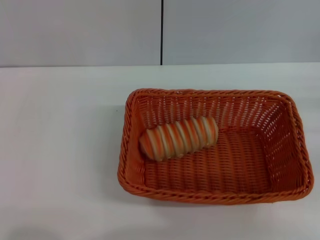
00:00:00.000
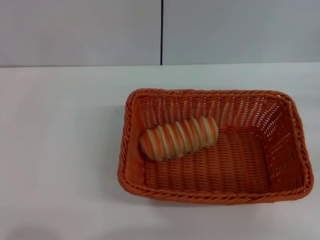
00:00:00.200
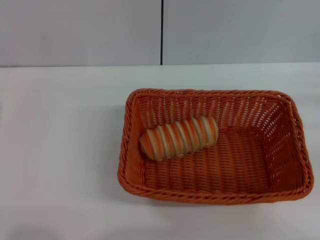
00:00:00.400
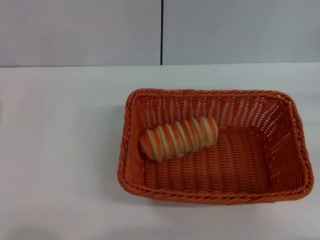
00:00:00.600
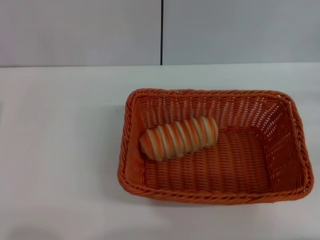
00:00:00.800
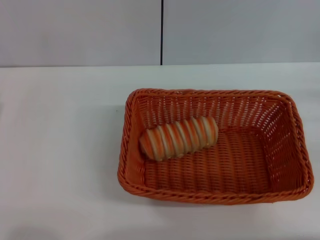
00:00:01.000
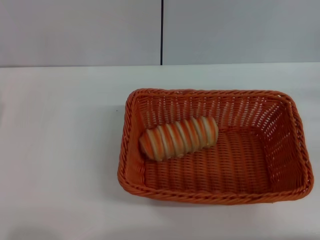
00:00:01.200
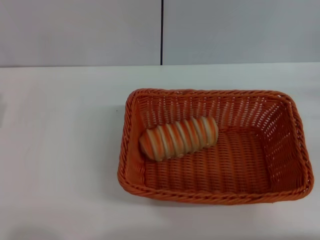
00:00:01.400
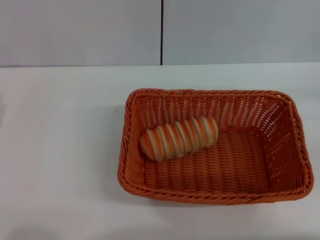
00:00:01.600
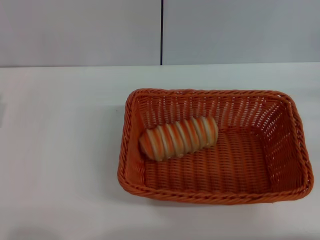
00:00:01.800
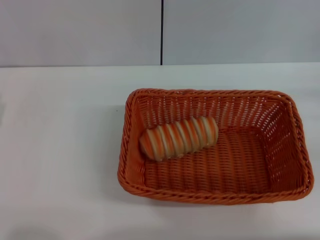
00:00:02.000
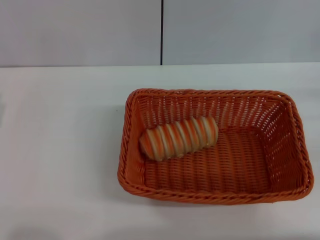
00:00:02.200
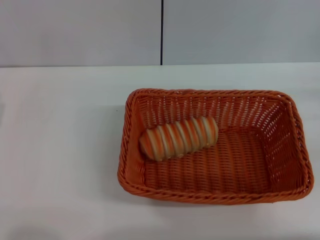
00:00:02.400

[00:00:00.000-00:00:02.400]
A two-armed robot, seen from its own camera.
00:00:01.200 to 00:00:02.400: The two grippers keep their place.

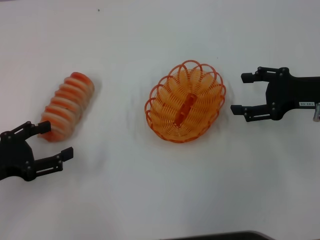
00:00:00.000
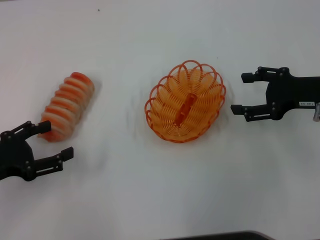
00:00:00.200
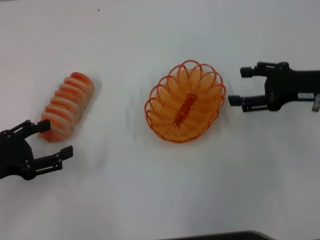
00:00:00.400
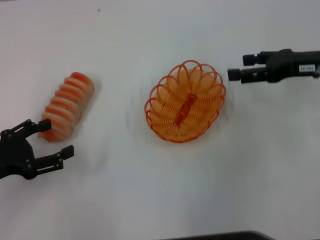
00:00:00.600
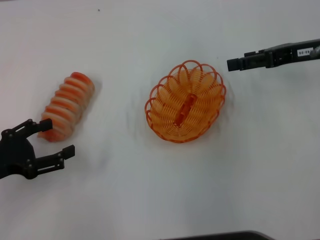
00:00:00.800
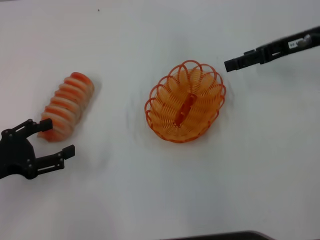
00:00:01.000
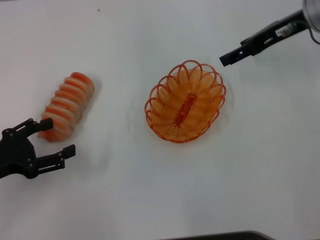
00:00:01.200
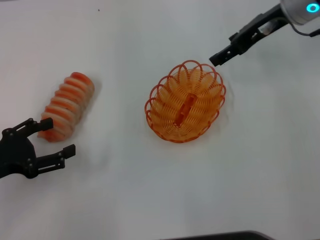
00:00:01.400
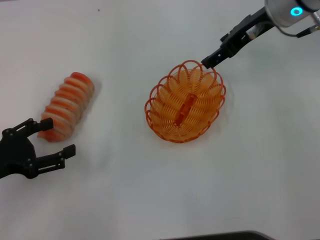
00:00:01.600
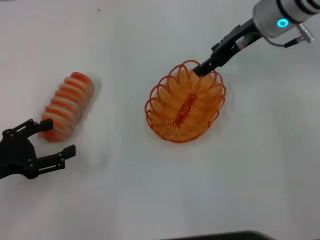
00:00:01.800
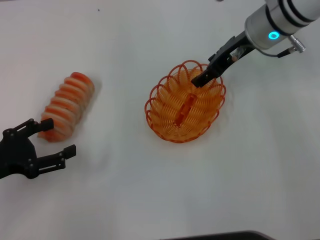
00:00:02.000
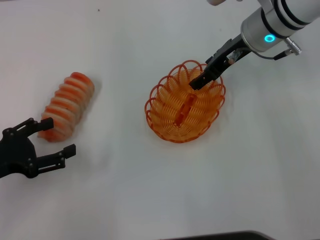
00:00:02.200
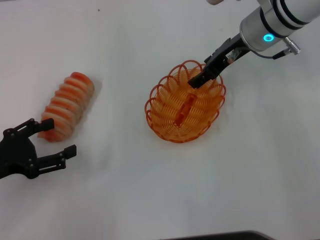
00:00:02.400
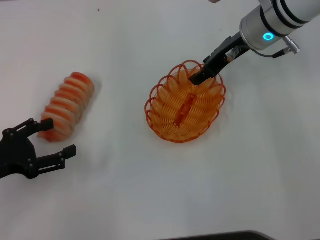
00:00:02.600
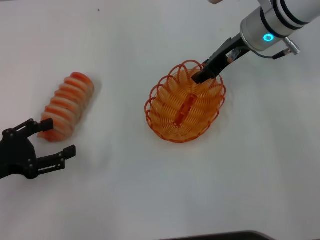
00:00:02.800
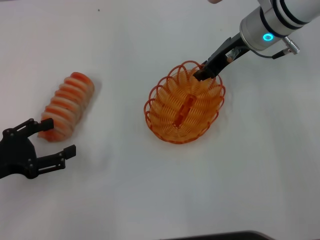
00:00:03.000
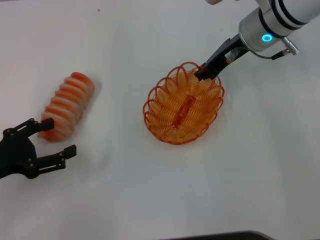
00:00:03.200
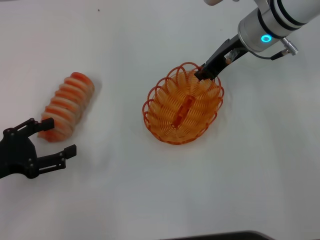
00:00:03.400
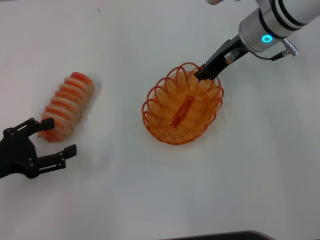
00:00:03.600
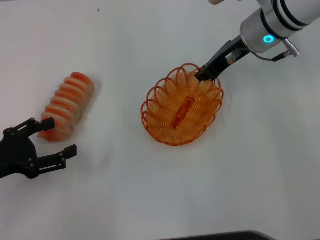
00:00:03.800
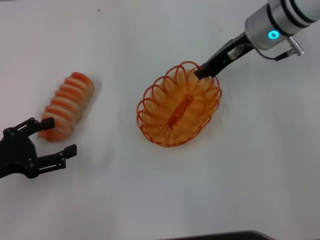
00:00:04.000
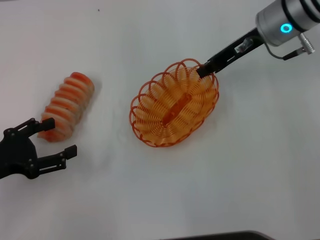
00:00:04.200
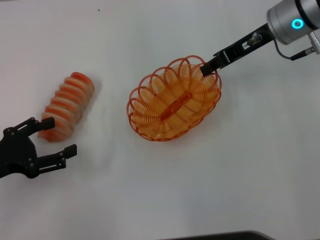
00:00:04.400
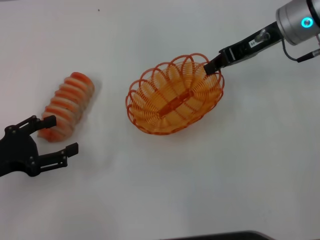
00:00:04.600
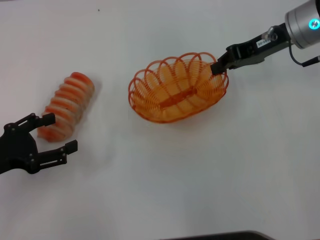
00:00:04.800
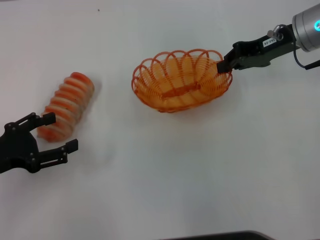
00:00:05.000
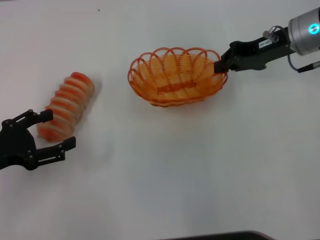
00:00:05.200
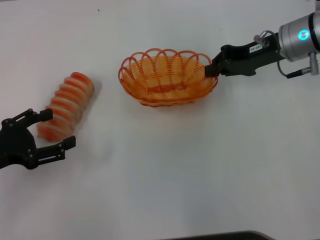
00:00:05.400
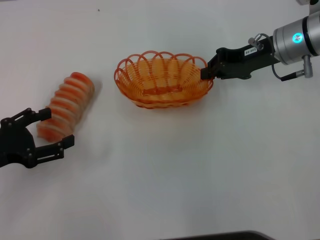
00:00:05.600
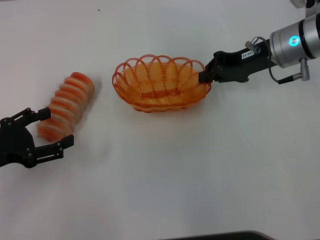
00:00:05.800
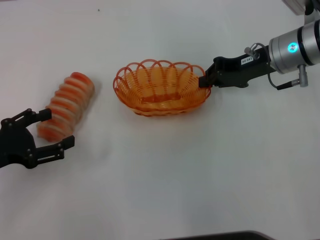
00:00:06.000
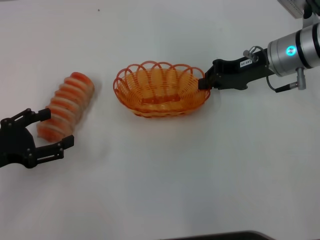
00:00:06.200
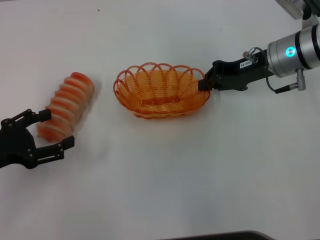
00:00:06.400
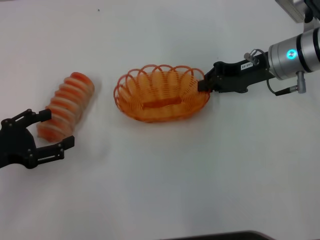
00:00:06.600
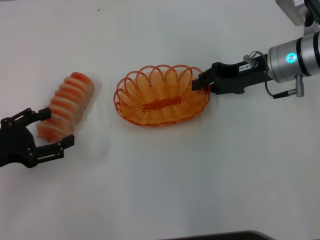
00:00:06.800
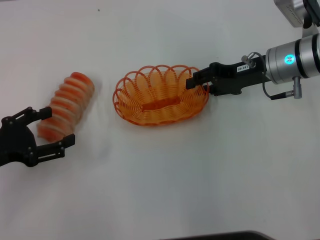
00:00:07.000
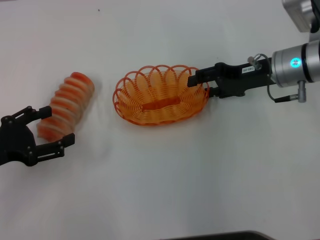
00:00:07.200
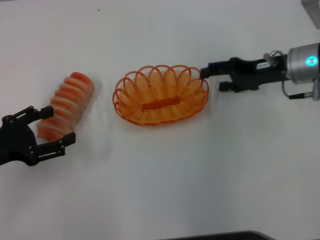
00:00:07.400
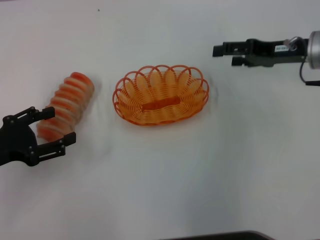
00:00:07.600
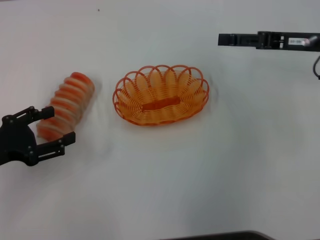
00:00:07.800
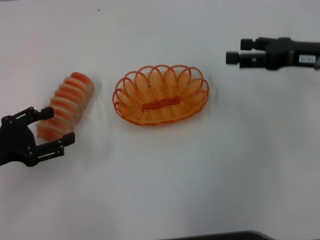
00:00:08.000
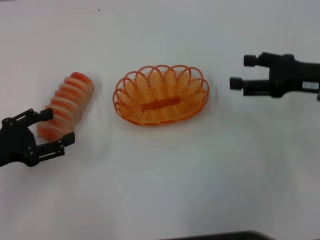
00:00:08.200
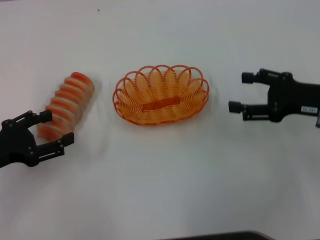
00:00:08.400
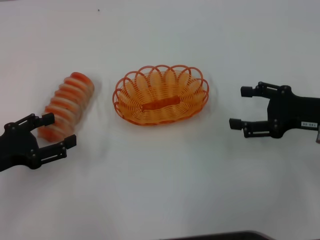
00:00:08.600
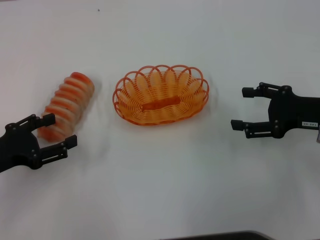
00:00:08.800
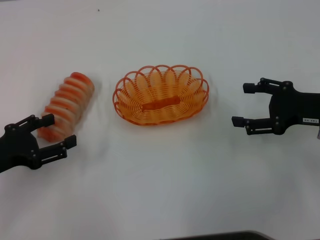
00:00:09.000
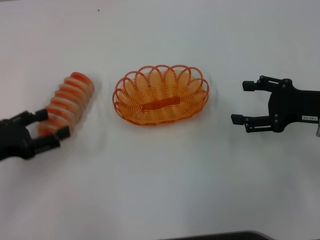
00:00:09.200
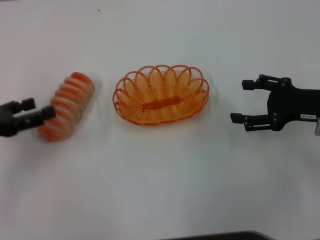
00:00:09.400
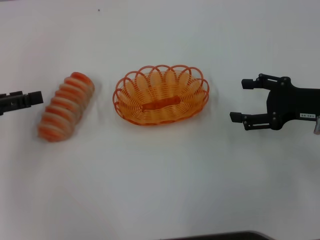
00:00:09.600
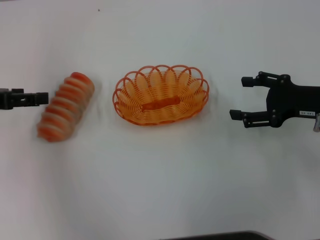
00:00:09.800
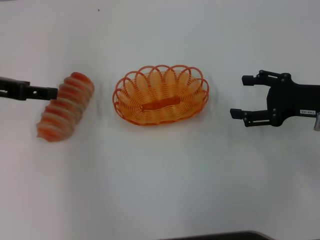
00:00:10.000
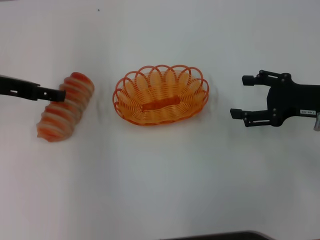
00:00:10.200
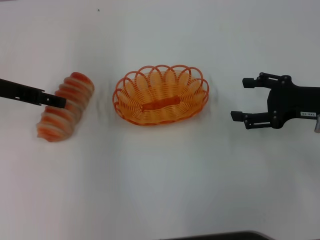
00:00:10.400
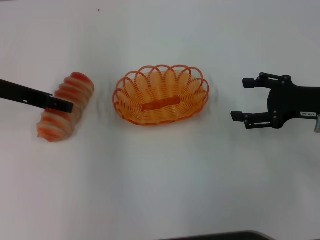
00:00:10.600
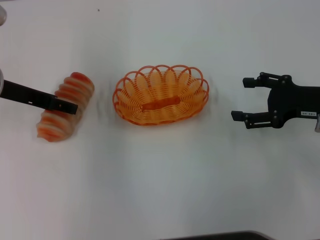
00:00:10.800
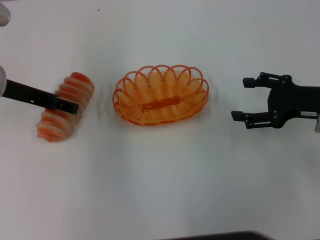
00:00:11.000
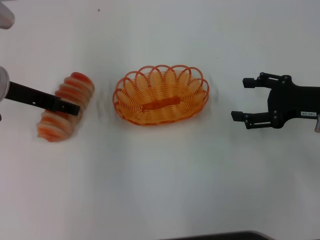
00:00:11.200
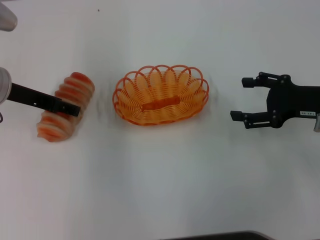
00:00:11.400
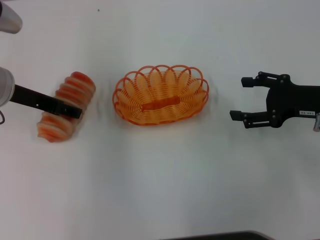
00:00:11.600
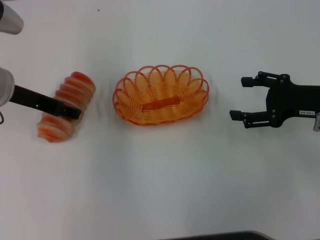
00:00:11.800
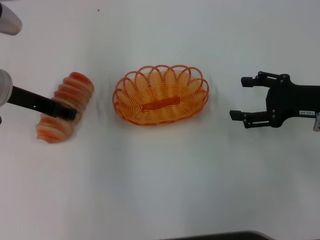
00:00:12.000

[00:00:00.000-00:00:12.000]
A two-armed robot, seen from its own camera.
Step, 00:00:00.000 to 00:00:04.600: Pick up the basket with the right gripper.
Step, 00:00:05.000 to 00:00:07.600: Place the basket in the center of view with the right gripper.
00:00:00.000 to 00:00:01.600: The right gripper shifts approximately 20 cm forward, to the left and upward.
00:00:01.600 to 00:00:03.000: The right gripper closes.
00:00:03.000 to 00:00:04.400: The right gripper closes its fingers.
00:00:04.400 to 00:00:06.000: The right gripper goes some 5 cm downward.
00:00:06.000 to 00:00:07.600: The right gripper heads to the right, covering roughly 5 cm, and opens up.
00:00:07.600 to 00:00:09.000: The right gripper moves backward, some 10 cm.
00:00:09.000 to 00:00:10.400: The left gripper heads forward, upward and to the right, covering about 15 cm.
00:00:10.400 to 00:00:12.000: The grippers move only a little.

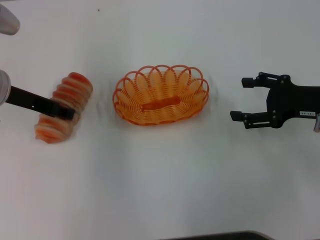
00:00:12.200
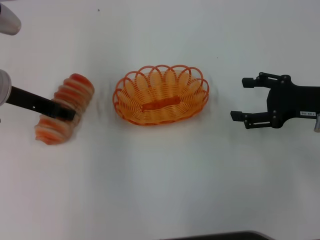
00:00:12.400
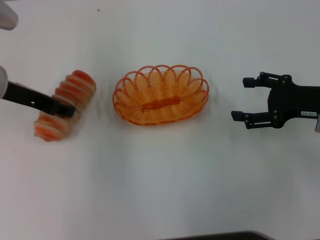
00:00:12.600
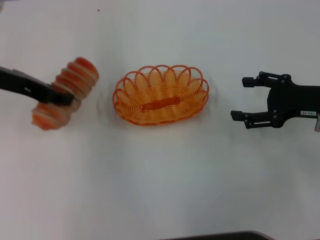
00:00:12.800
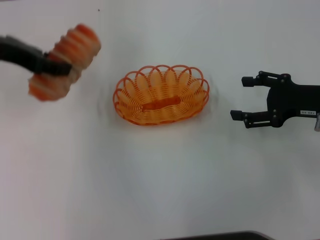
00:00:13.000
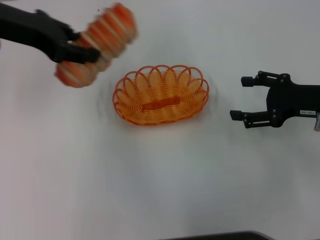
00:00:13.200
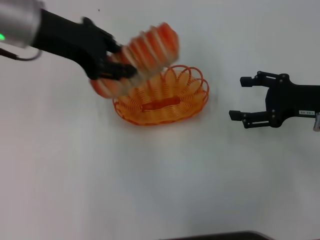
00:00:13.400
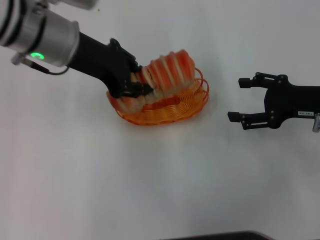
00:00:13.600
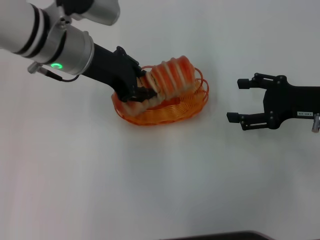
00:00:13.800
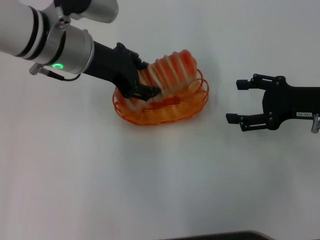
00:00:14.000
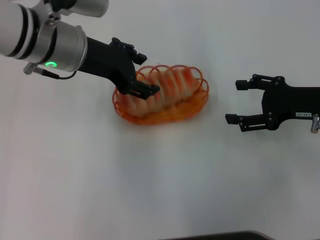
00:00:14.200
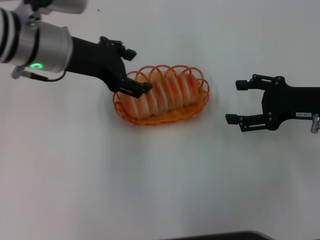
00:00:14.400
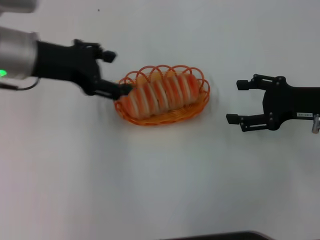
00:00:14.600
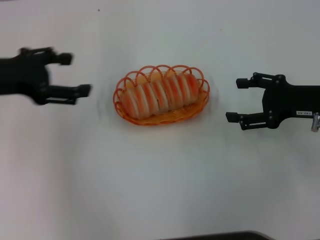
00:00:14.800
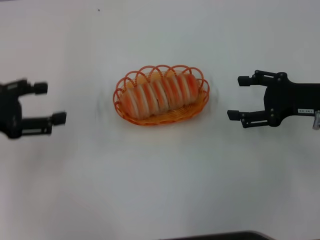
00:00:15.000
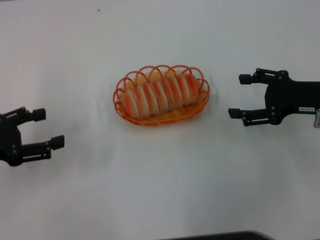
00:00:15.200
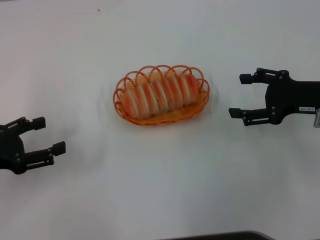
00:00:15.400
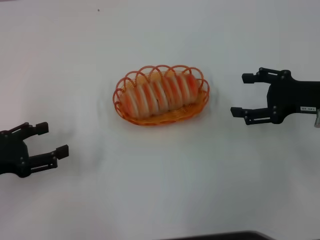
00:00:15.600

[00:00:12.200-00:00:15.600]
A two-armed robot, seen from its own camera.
Step, 00:00:13.000 to 00:00:14.400: Place the long bread into the basket with the left gripper.
00:00:12.200 to 00:00:13.800: The left gripper shifts roughly 10 cm to the right, and closes.
00:00:13.800 to 00:00:15.600: The left gripper is displaced to the left, backward and downward by some 25 cm, and opens its fingers.
